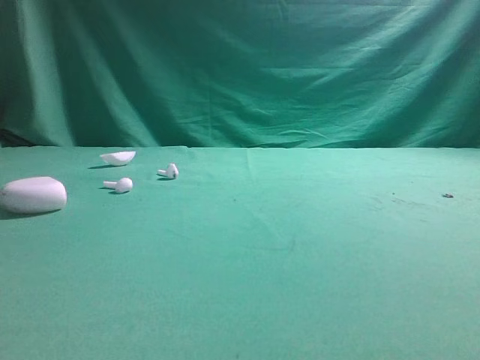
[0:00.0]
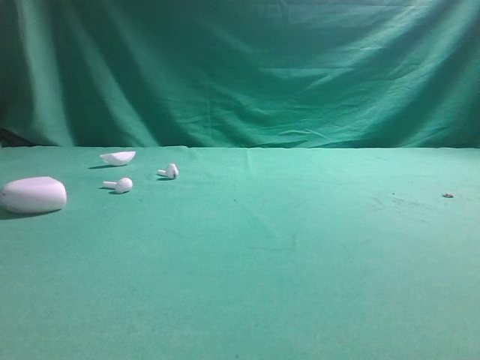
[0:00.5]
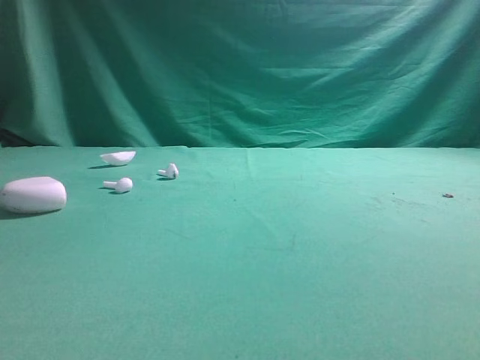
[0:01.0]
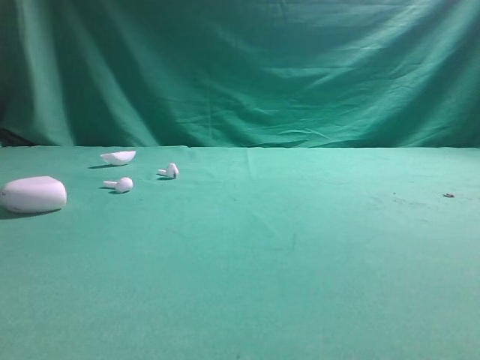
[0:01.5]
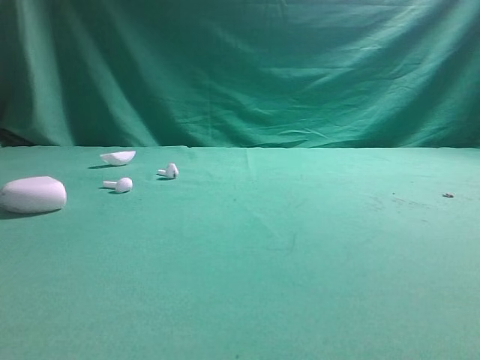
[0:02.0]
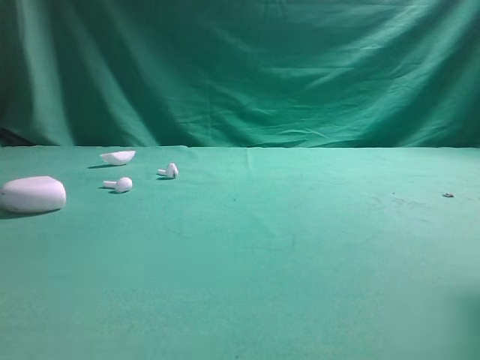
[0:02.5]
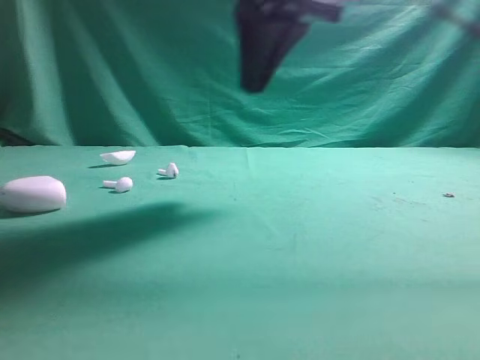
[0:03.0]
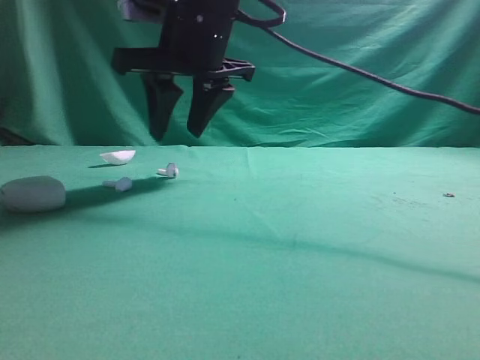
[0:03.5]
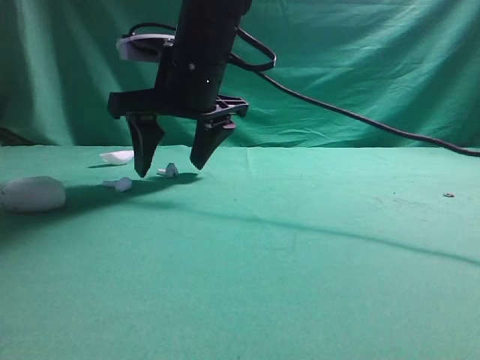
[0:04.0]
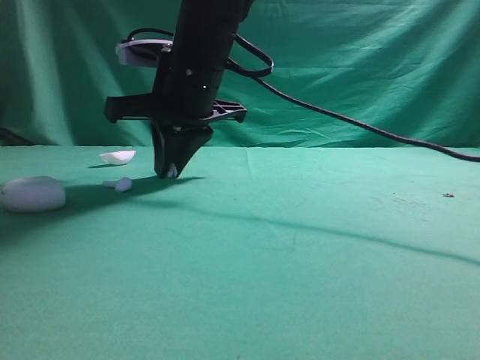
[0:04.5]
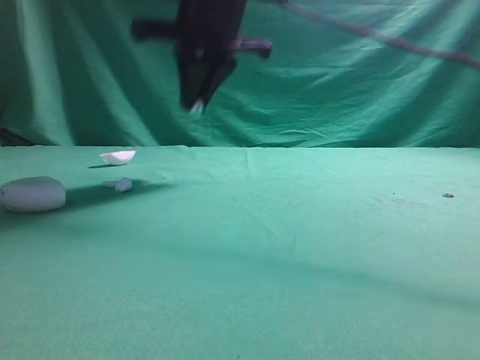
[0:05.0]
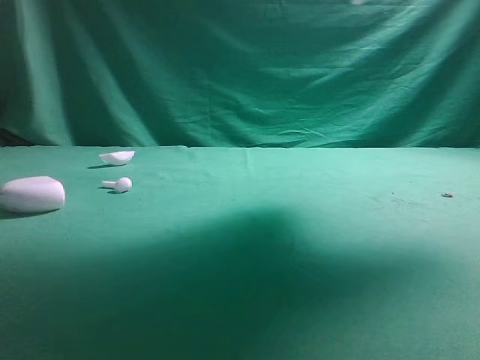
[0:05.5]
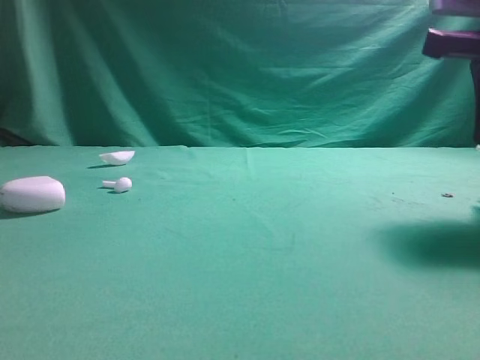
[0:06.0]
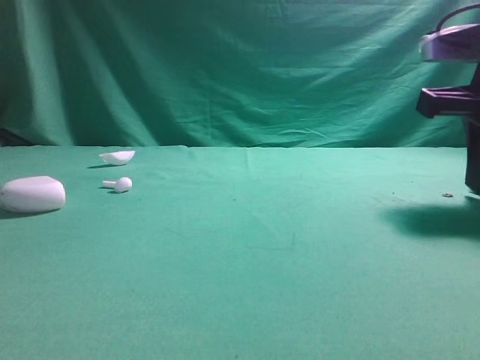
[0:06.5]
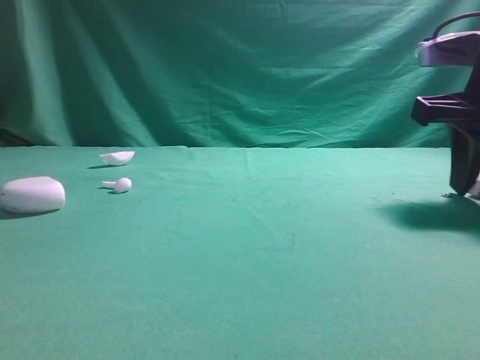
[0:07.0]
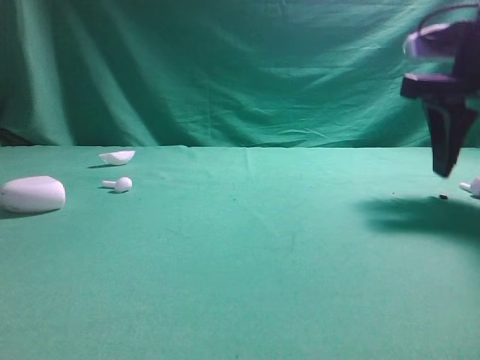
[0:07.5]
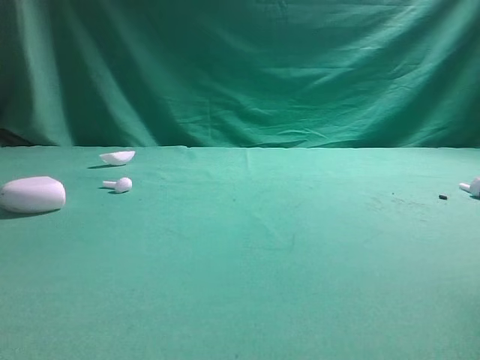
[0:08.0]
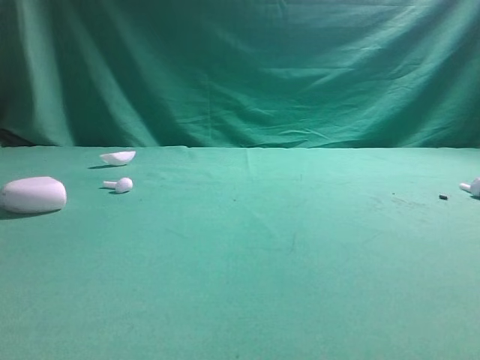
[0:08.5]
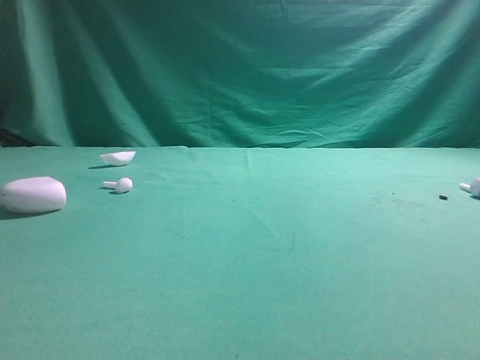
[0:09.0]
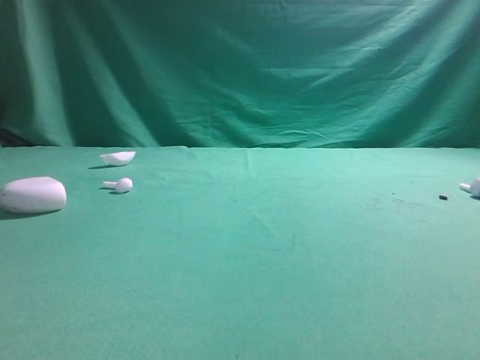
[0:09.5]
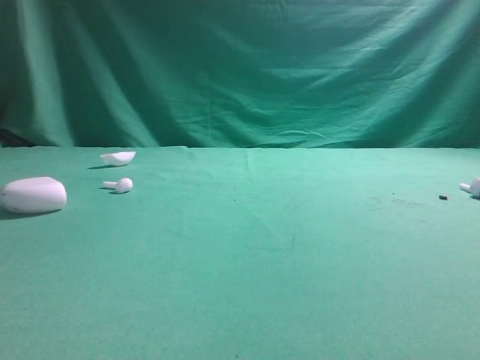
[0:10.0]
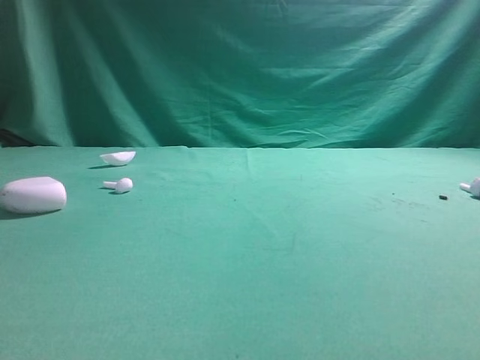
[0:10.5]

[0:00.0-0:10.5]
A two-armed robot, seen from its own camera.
Step, 0:00.0 to 0:05.0: Grasp the Bluetooth earbud.
Step, 0:05.5 to 0:07.5: Place bluetooth earbud on the right side of the table.

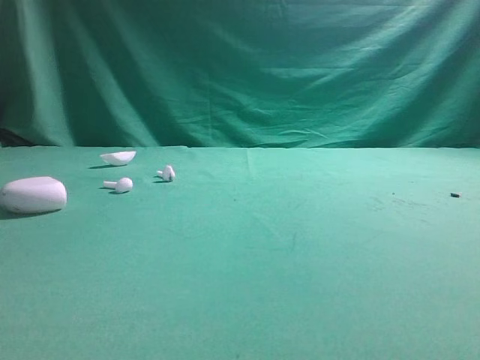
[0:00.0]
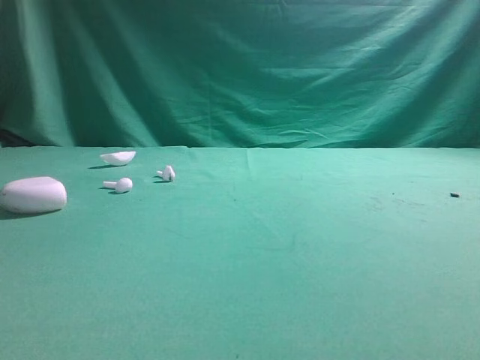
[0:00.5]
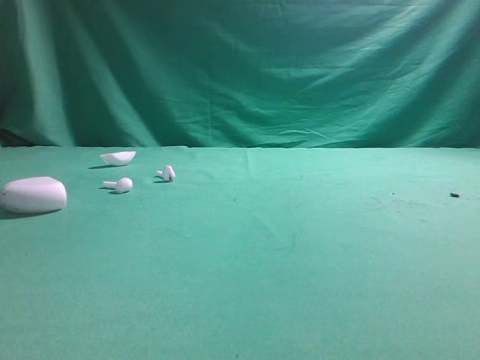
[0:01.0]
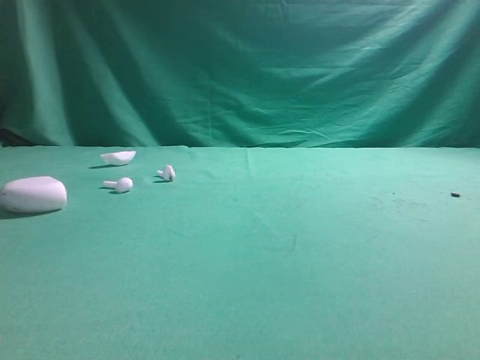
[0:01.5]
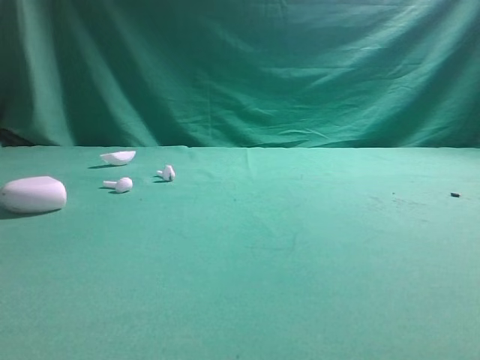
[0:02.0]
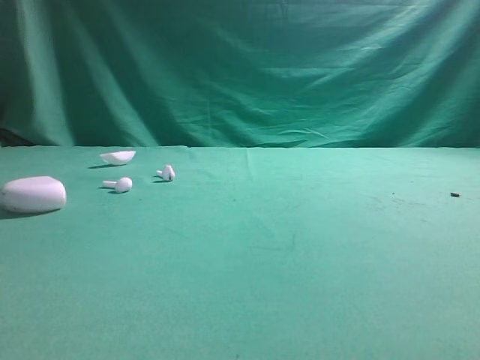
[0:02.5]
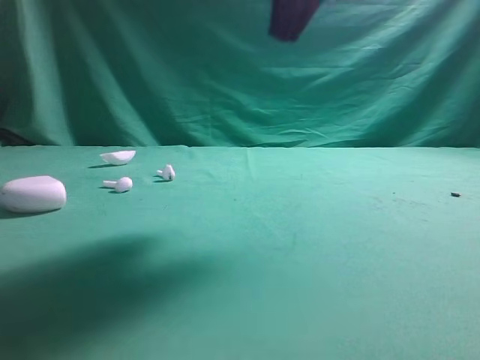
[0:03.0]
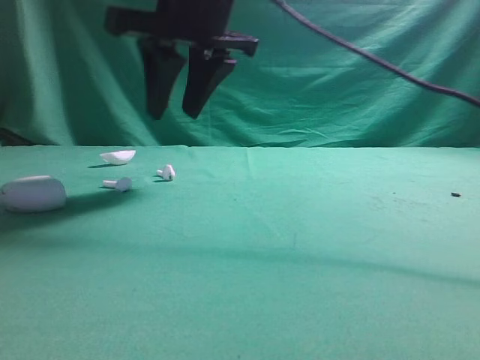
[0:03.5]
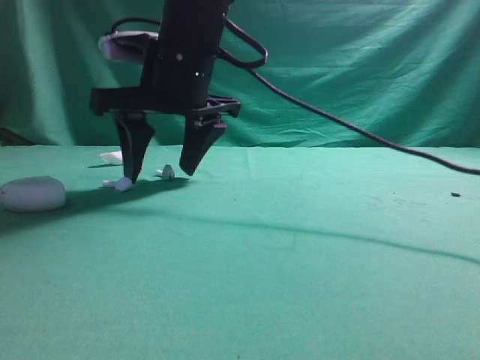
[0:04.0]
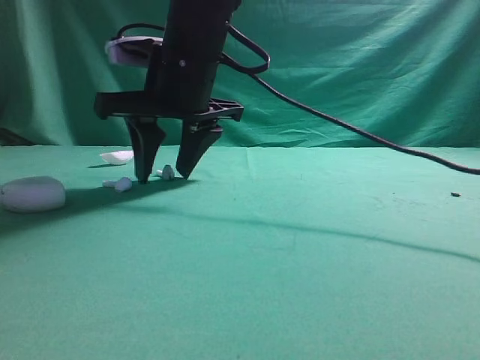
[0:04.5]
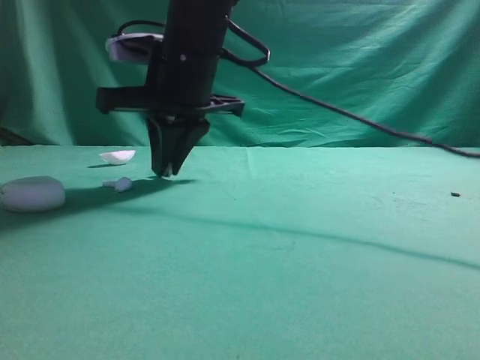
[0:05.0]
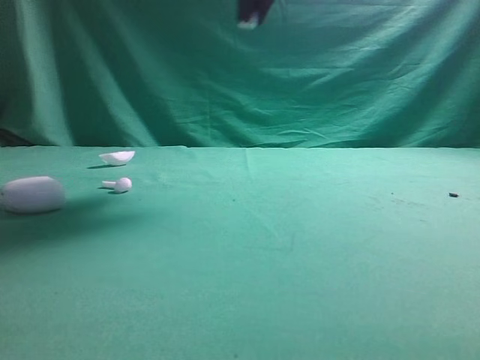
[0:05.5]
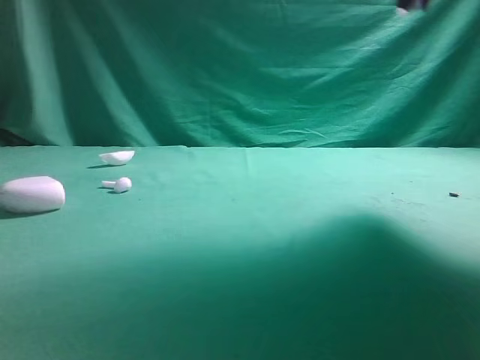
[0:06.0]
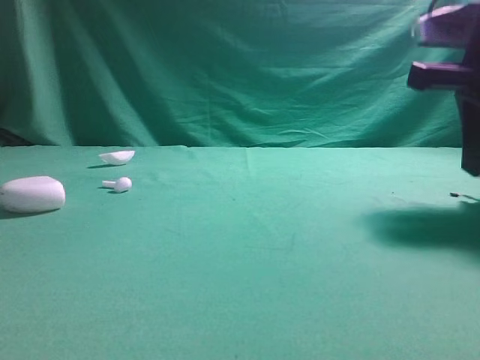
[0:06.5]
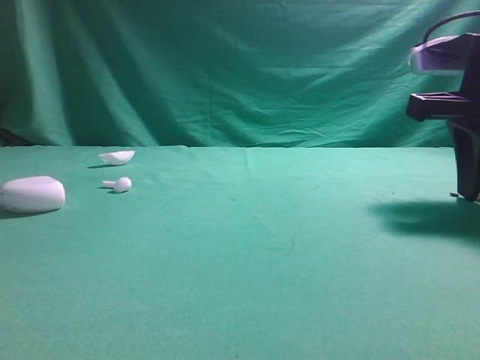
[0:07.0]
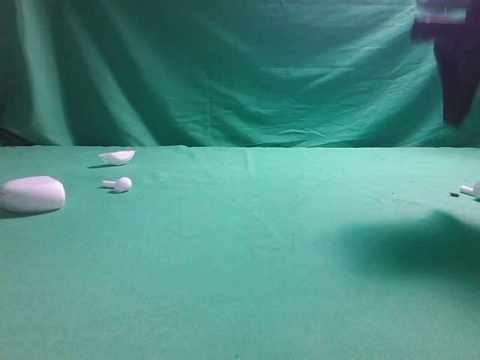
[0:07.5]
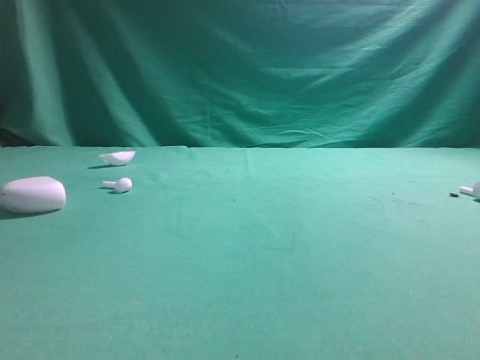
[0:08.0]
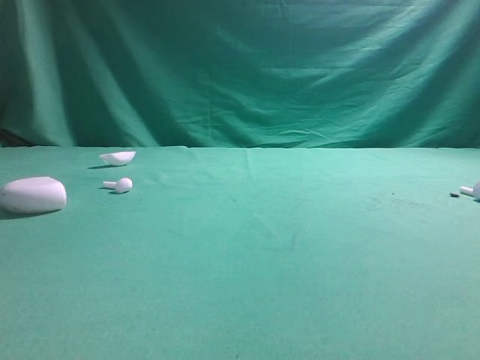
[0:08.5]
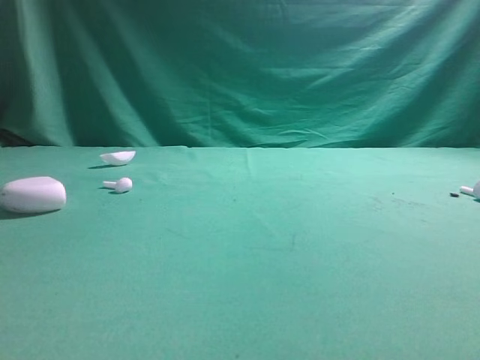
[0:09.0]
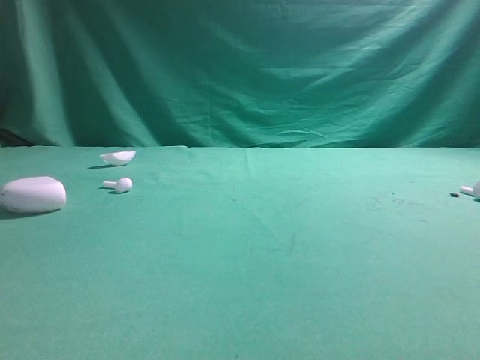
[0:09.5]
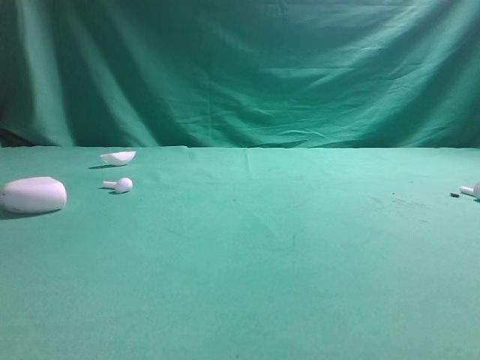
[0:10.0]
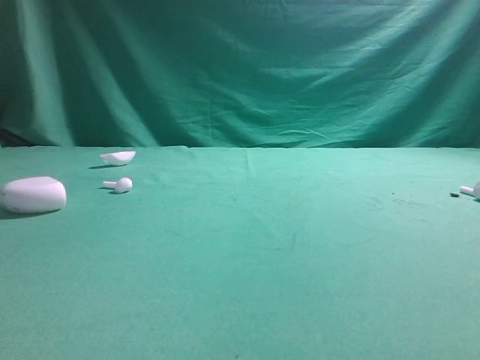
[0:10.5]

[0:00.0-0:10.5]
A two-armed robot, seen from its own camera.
Step, 0:00.0 to 0:05.0: Grasp the Bluetooth earbud.
Step, 0:05.5 to 0:07.0: Place bluetooth earbud on the right side of the table.

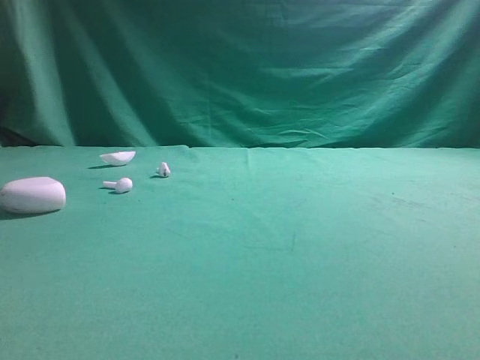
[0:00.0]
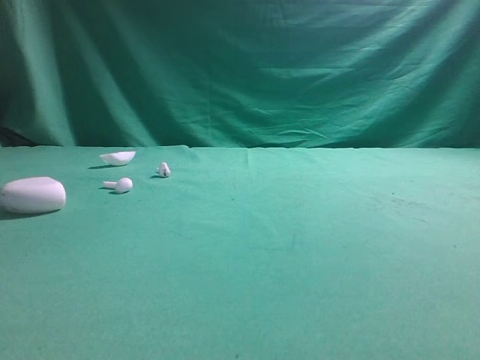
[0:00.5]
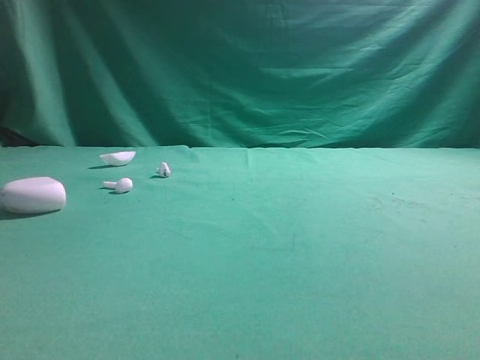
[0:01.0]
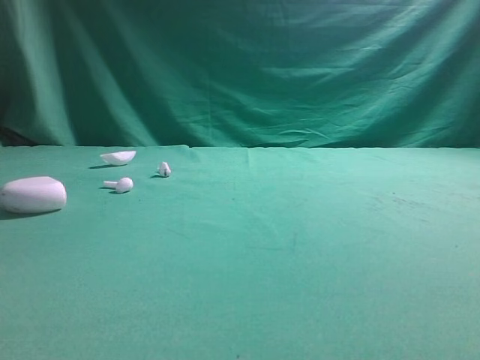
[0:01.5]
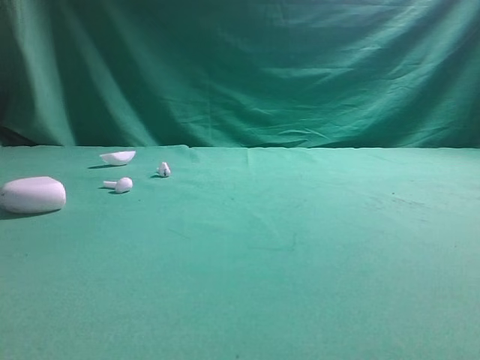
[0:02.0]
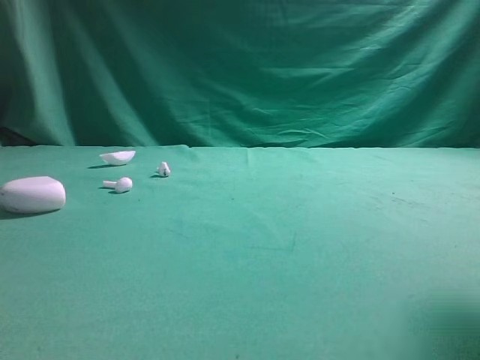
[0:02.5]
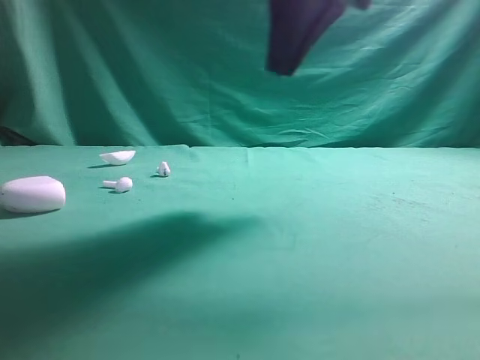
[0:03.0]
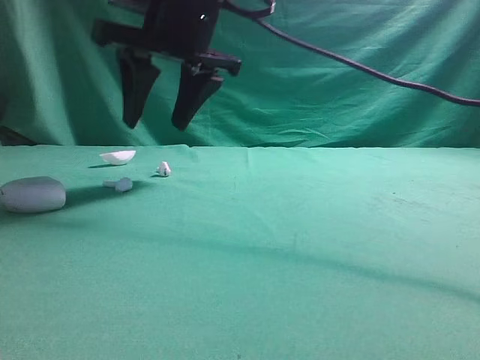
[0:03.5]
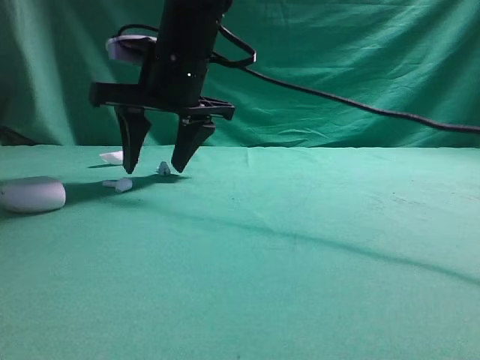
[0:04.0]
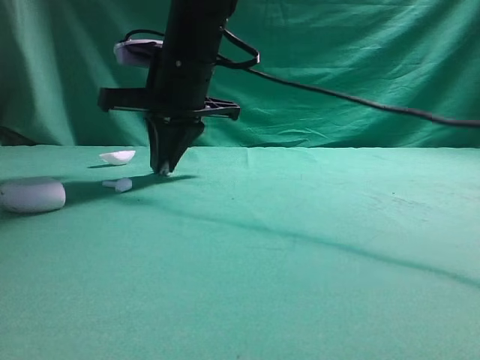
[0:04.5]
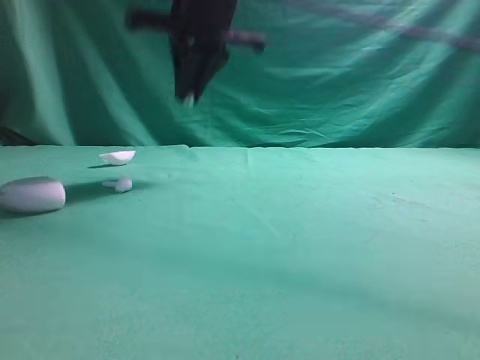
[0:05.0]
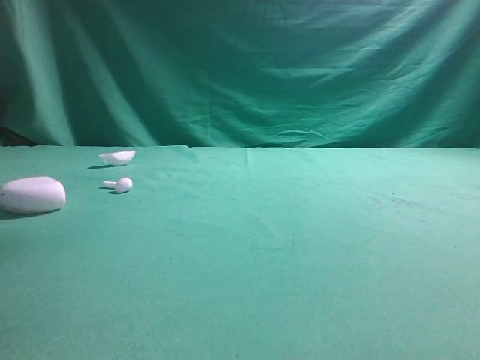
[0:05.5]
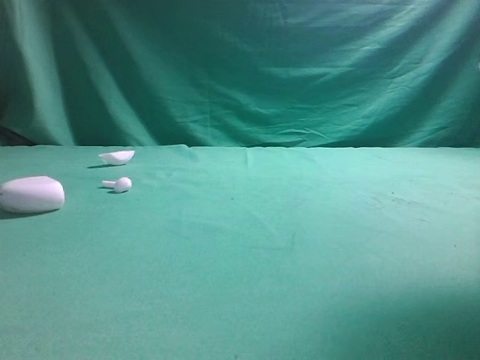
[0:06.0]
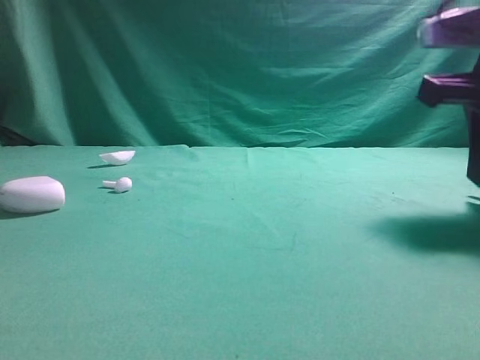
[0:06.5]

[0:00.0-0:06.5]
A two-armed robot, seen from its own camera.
Step, 0:00.0 to 0:05.0: Grasp the Bluetooth earbud.
